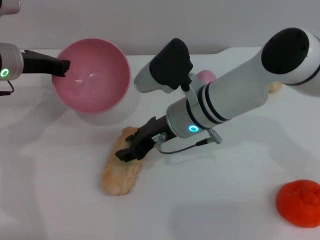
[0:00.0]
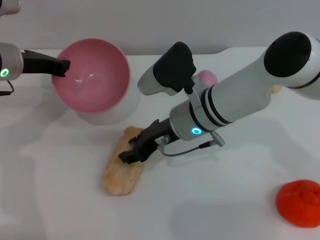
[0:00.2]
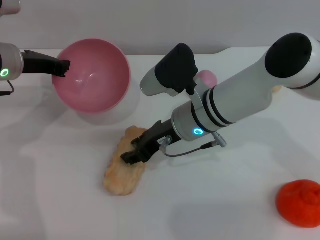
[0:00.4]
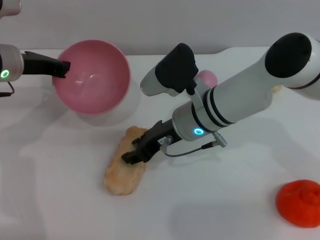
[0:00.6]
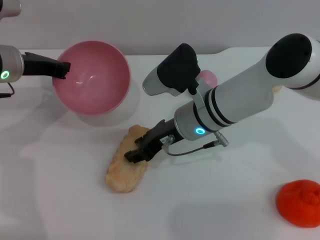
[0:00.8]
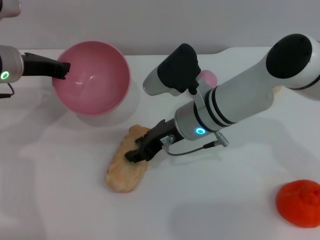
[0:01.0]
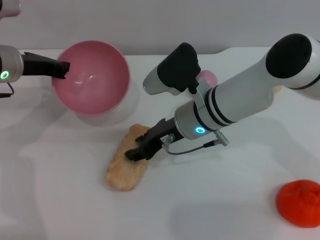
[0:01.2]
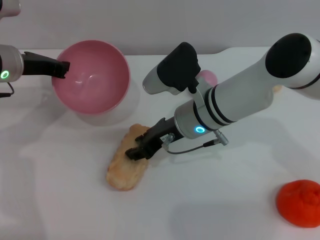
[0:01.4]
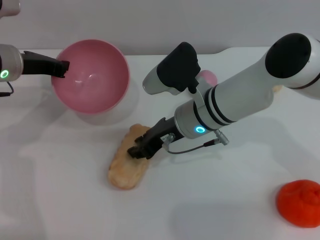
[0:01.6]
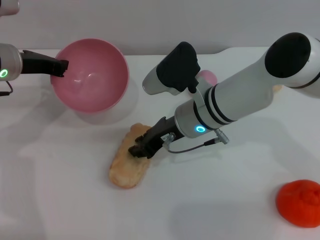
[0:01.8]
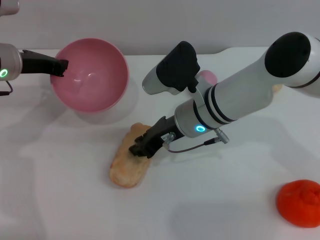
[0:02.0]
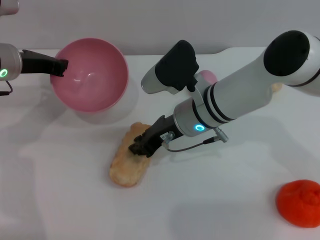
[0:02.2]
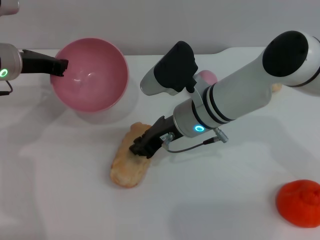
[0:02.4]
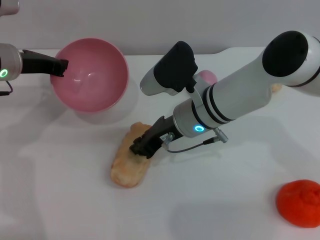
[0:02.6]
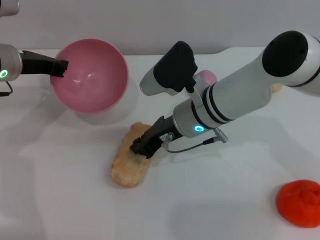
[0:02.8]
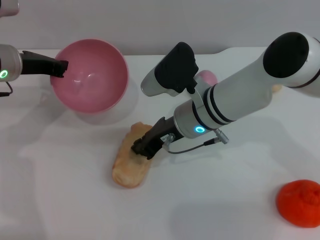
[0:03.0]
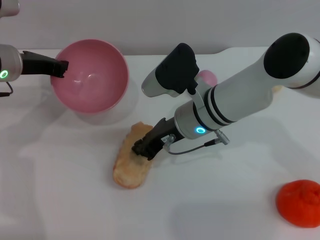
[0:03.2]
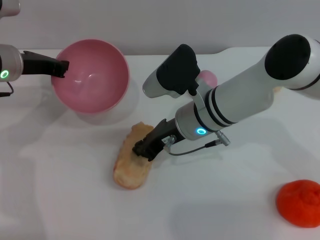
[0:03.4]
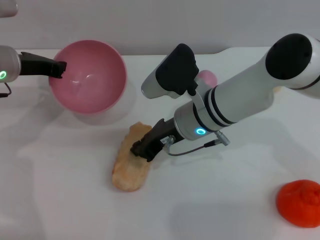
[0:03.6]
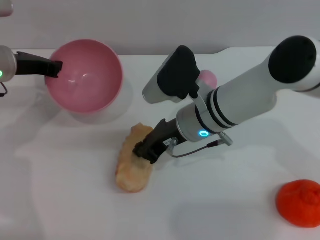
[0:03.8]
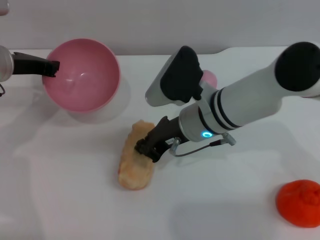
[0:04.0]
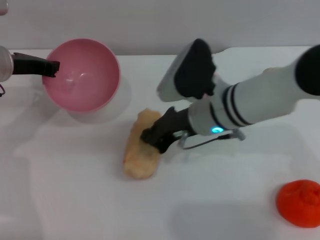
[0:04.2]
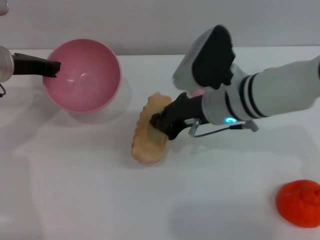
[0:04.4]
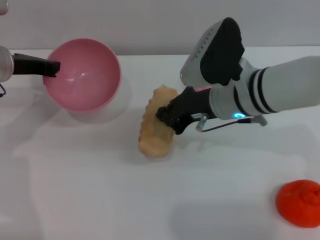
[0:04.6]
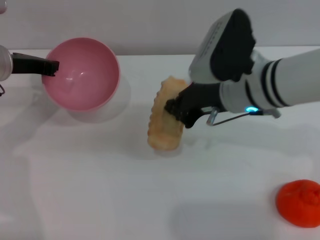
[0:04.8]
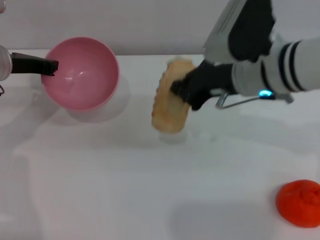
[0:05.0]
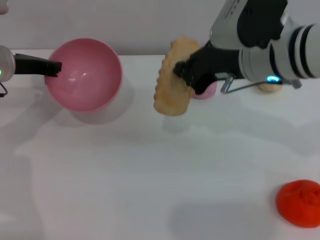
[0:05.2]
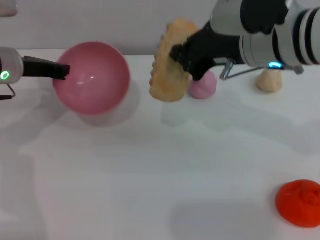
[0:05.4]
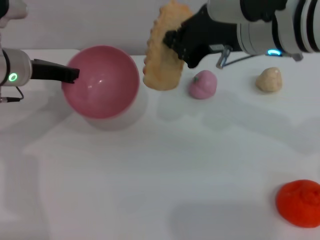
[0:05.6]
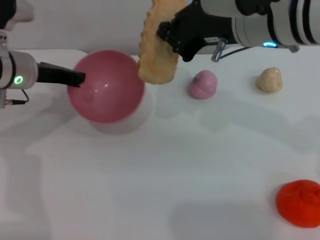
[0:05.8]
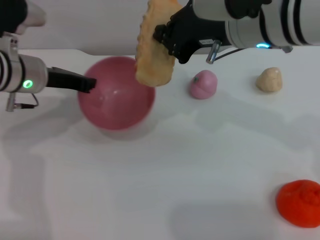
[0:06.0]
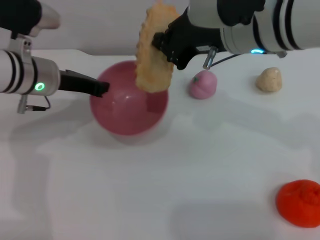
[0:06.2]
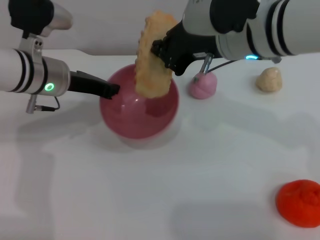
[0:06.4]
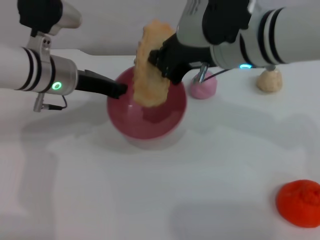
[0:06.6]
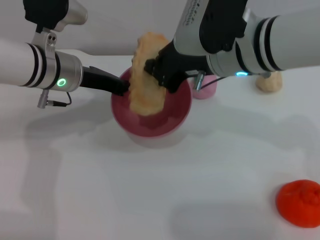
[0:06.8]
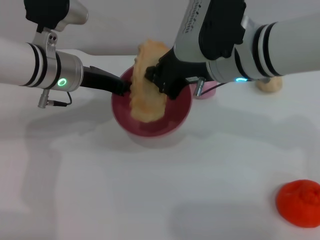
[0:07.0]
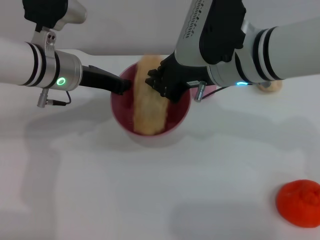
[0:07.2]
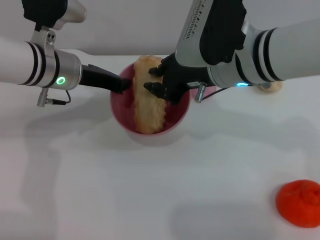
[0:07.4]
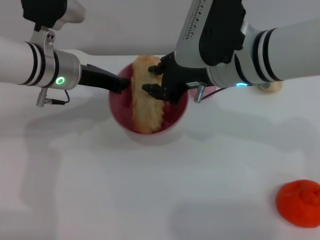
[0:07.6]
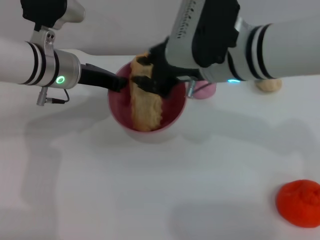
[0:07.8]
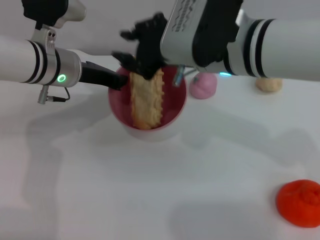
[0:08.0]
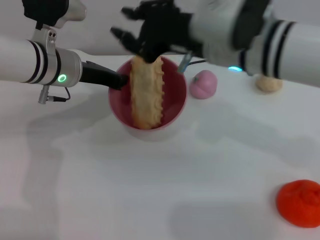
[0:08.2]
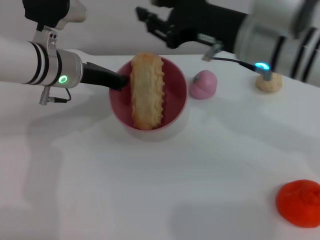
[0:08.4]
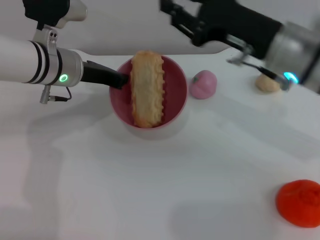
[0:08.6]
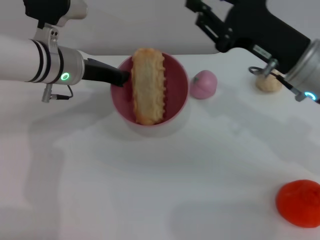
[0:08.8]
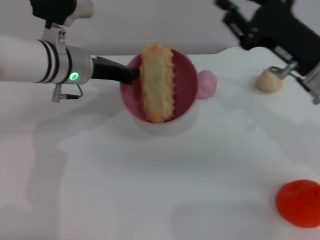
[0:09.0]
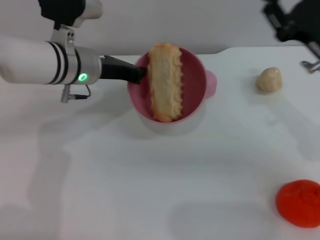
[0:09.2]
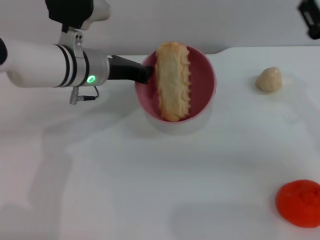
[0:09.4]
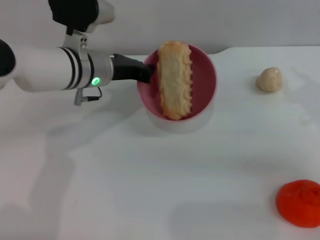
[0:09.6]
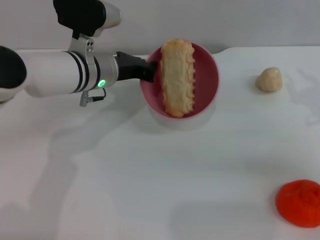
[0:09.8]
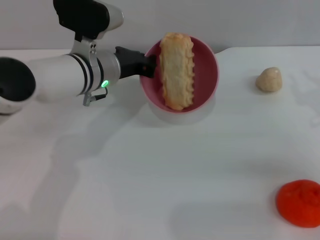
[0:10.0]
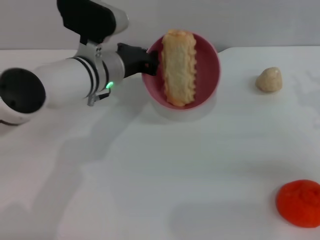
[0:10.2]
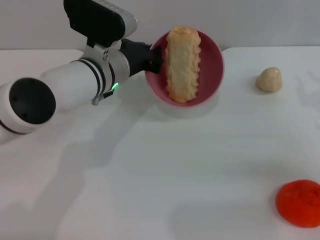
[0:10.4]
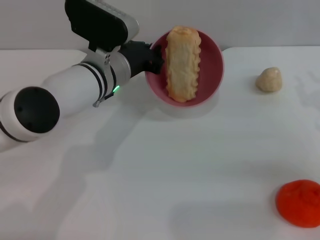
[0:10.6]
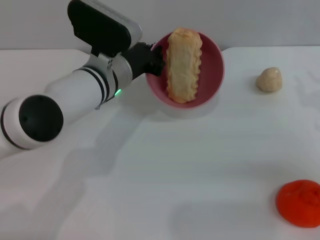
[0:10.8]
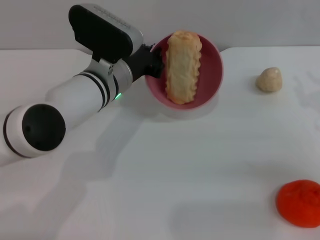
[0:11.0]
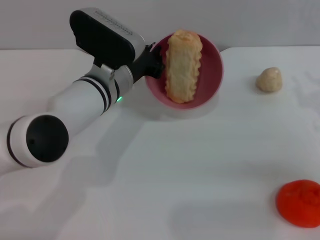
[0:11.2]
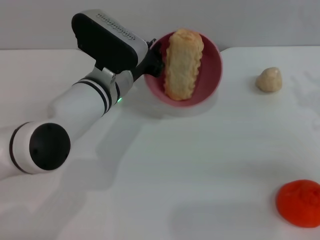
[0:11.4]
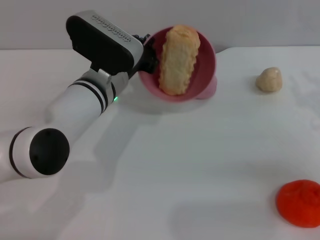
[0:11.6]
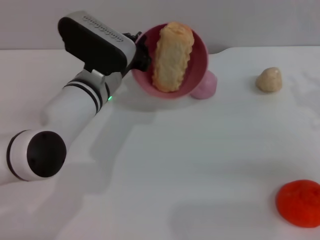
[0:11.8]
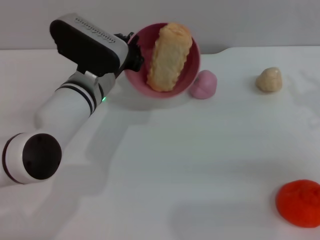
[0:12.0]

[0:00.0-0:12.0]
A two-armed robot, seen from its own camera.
Task of the whole recording: put the bread into the pink bowl and pour it out repeatedly.
Step, 0:00.0 to 0:05.0: Pick up the bread with the right gripper.
Step, 0:05.2 to 0:08.2: Place the bread into the bowl.
0:00.0 to 0:01.6: There are only small adjustments of the grippers.
0:01.6 to 0:03.0: The right gripper closes up.
0:03.0 to 0:04.4: The right gripper moves some 5 cm.
0:04.4 to 0:06.0: The right gripper heads upward, covering about 10 cm.
0:06.0 to 0:07.6: The right gripper goes roughly 5 cm downward, and opens.
0:07.6 to 0:09.0: The right gripper is displaced to the right by roughly 10 cm.
0:09.0 to 0:10.4: The right gripper travels to the right by about 10 cm; the left gripper goes approximately 5 cm to the right.
0:10.4 to 0:12.0: The grippers stay close to where they were, moving slightly.

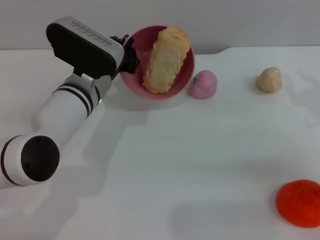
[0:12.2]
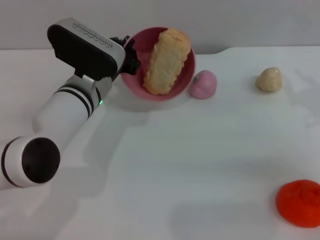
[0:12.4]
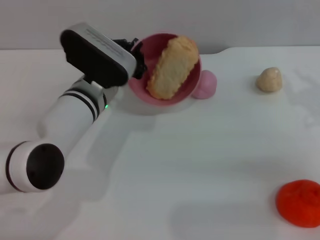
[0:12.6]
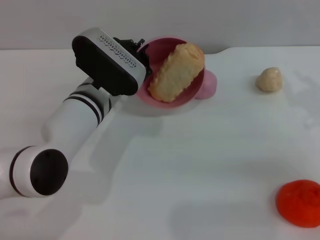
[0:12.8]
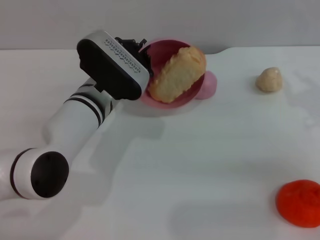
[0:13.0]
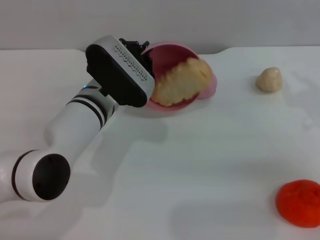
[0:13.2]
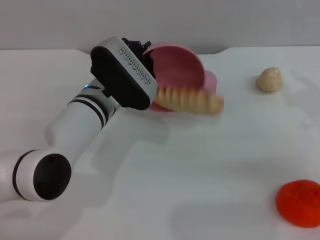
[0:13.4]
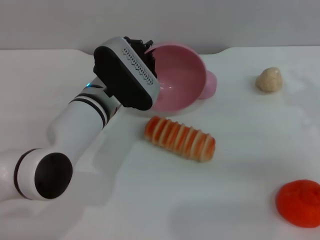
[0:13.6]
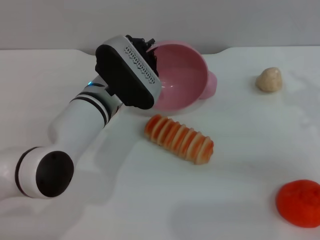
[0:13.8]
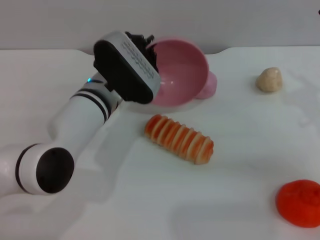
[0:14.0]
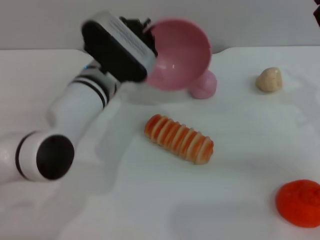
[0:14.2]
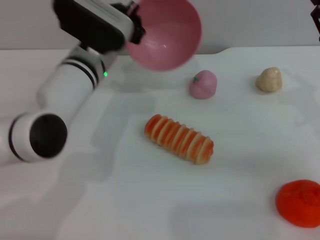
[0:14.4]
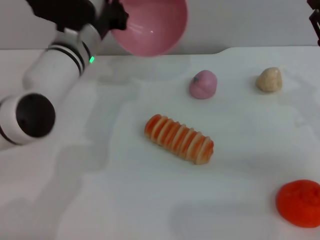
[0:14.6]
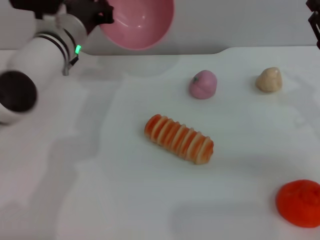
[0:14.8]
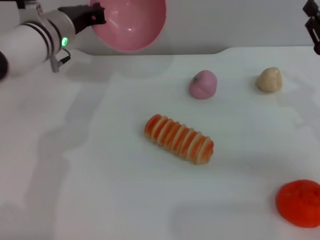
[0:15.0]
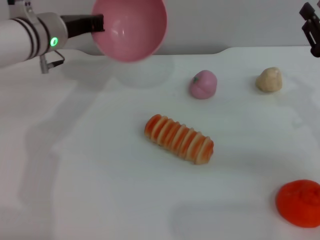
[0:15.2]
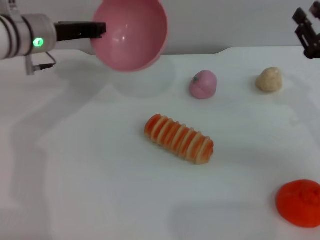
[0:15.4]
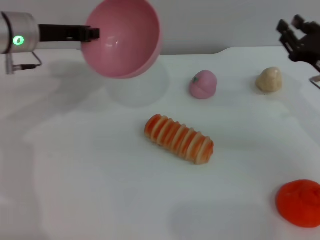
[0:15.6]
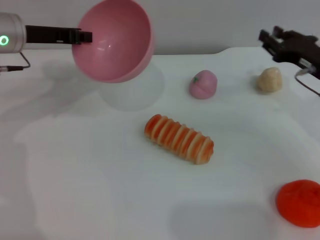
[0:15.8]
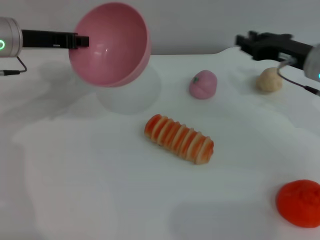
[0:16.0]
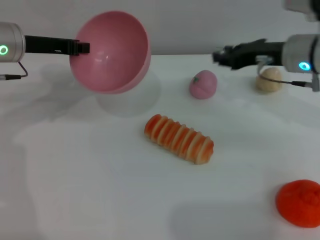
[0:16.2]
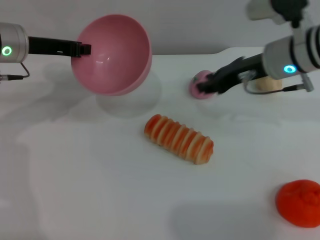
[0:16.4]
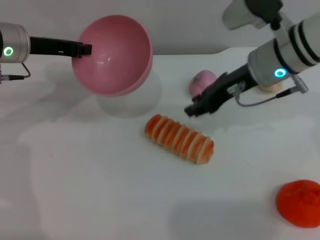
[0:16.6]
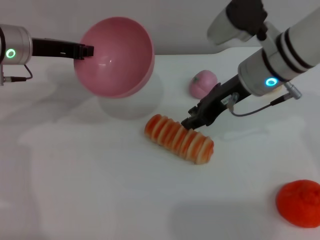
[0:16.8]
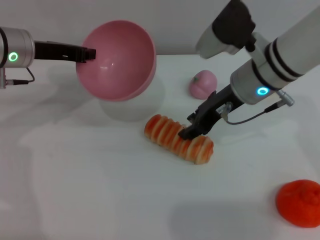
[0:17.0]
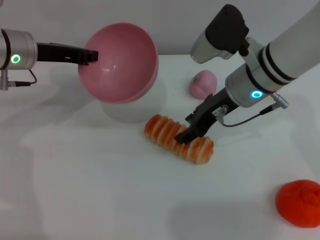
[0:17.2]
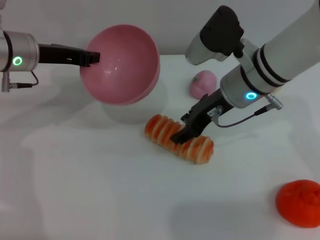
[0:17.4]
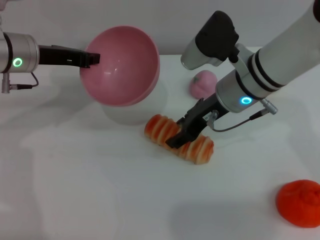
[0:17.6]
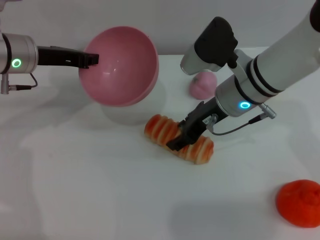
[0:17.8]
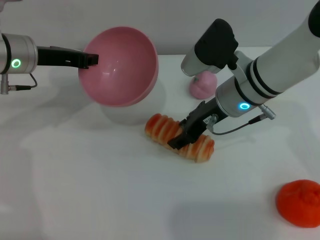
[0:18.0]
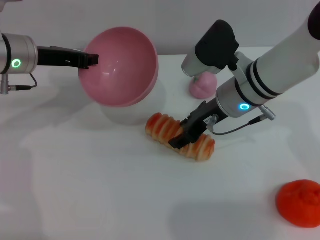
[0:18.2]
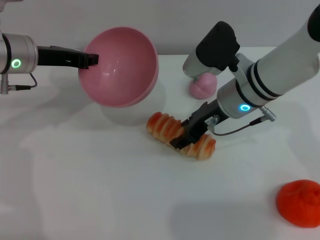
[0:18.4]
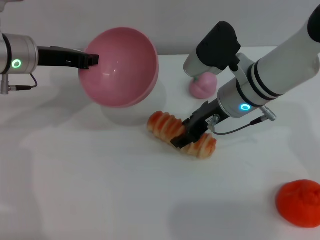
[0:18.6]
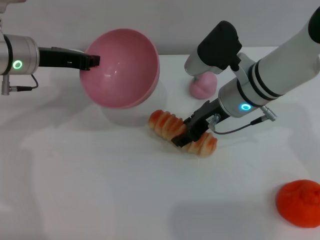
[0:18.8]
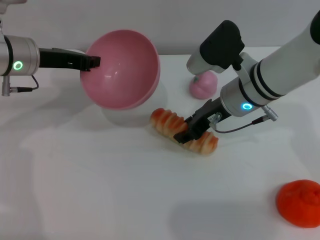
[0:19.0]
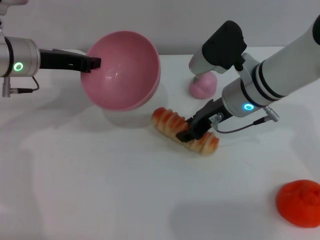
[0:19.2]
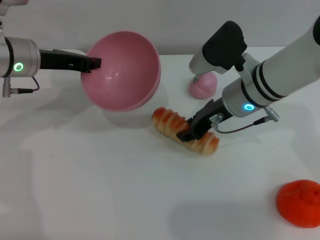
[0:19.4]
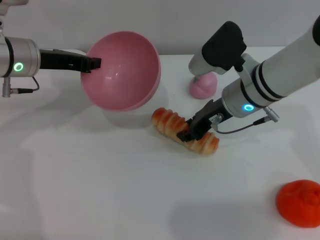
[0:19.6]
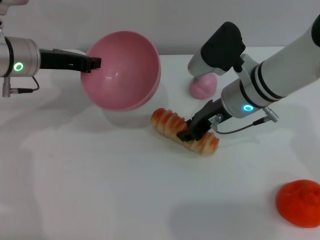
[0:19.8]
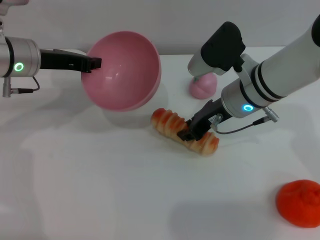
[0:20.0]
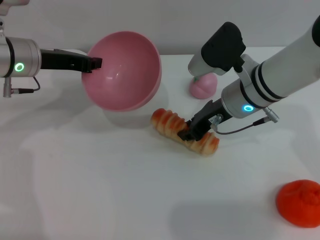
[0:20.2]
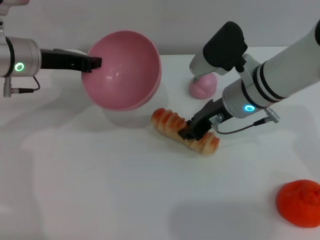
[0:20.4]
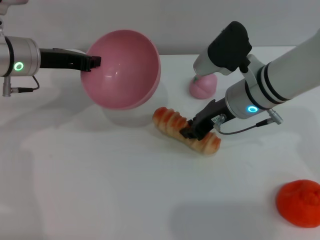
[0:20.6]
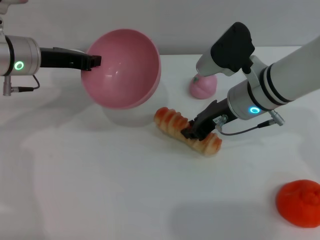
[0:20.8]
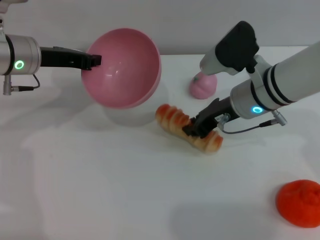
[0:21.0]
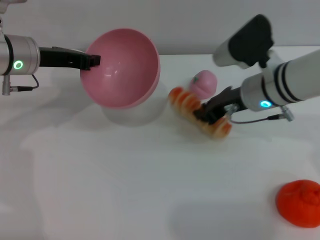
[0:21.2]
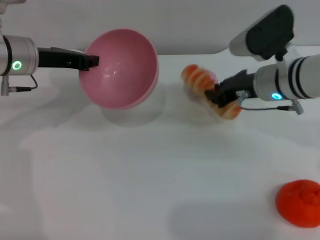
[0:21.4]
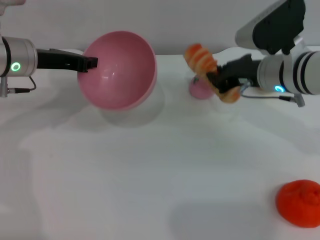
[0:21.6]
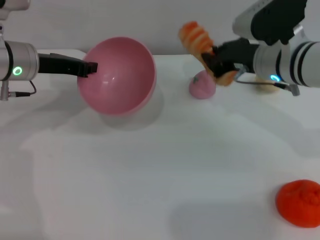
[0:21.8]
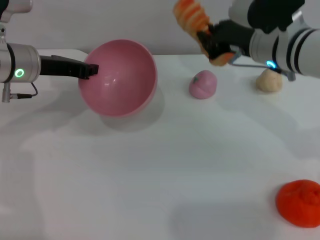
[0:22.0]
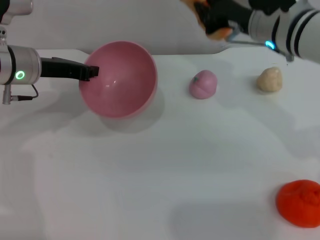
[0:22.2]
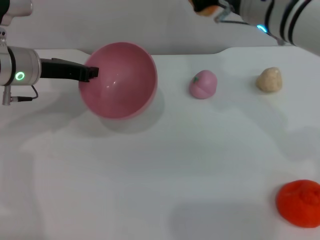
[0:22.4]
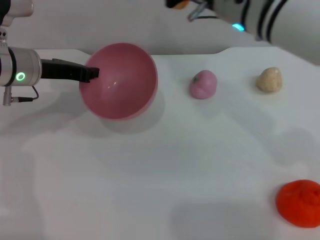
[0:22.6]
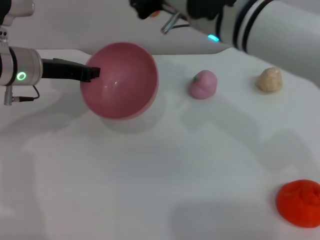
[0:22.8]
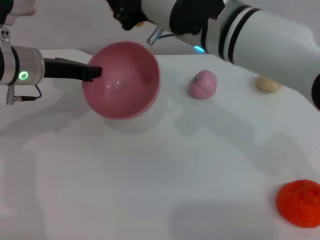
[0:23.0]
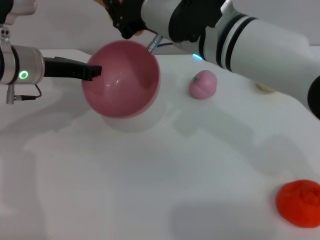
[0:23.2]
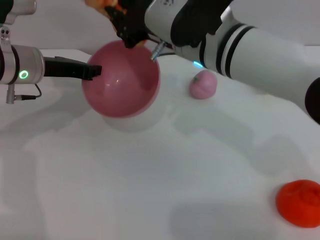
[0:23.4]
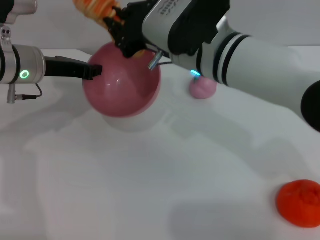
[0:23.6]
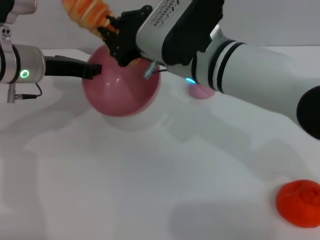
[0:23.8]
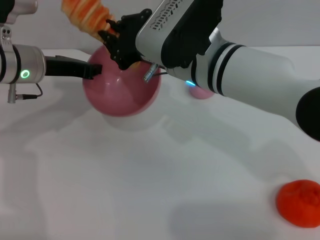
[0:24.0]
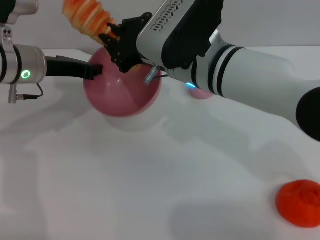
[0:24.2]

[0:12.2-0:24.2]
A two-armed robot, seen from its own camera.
Task of the whole recording: put the bread into the pink bowl and pour it out repeatedly.
Step, 0:12.2 to 0:14.2: Pour the bread out of the bowl.
Step, 0:14.4 to 0:21.8: Pick up the bread with the right gripper.
0:13.8 to 0:15.2: The left gripper is displaced to the left, forward and upward by about 15 cm.
0:15.2 to 0:16.6: The right gripper shifts some 15 cm to the left, forward and upward. Meanwhile the left gripper goes about 5 cm to the left.
0:16.6 to 0:18.2: The right gripper moves about 5 cm, and opens.
0:18.2 to 0:19.8: The right gripper closes up.
0:19.8 to 0:21.2: The grippers make only small movements.
0:21.2 to 0:22.6: The right gripper heads upward and to the left, covering about 15 cm.
0:22.6 to 0:24.2: The right gripper travels to the left by roughly 5 cm.
